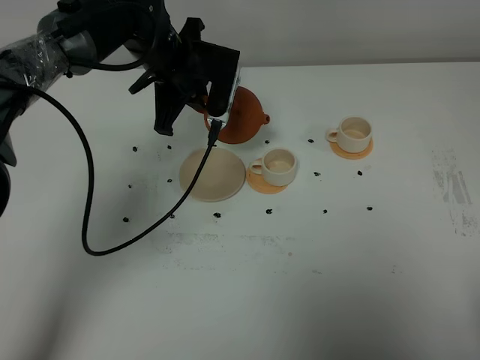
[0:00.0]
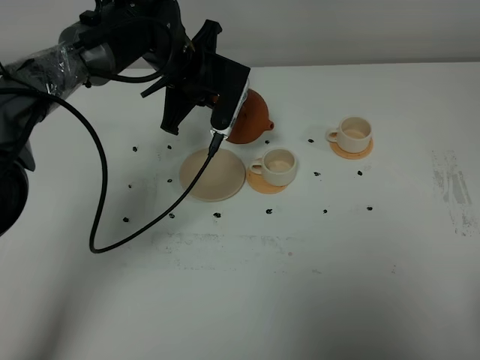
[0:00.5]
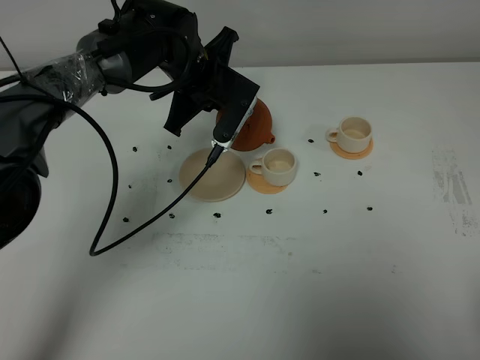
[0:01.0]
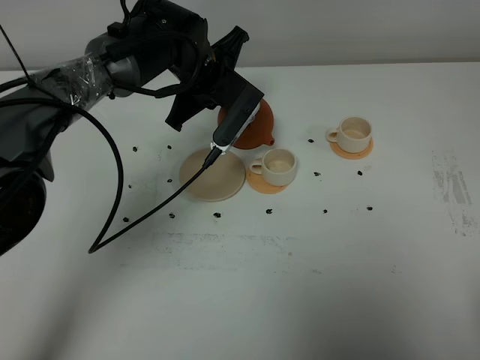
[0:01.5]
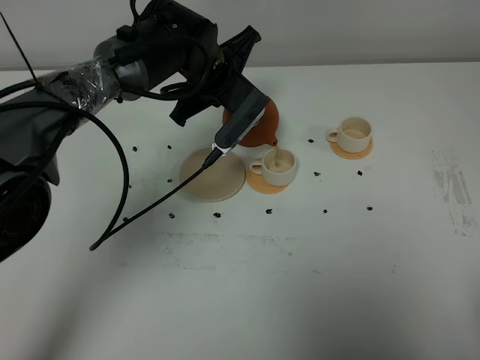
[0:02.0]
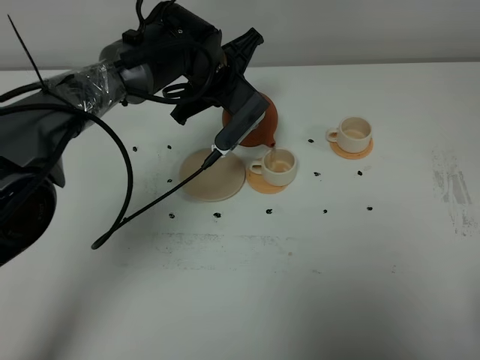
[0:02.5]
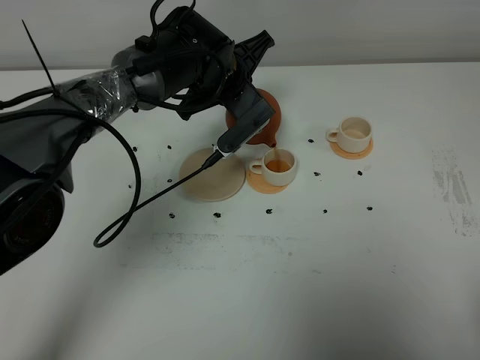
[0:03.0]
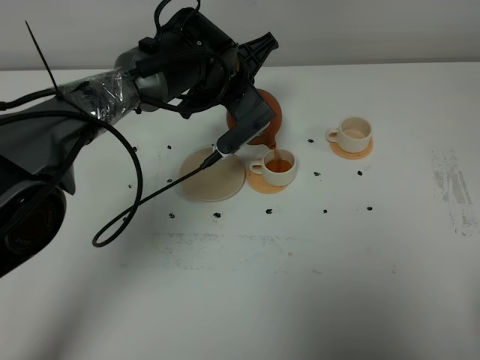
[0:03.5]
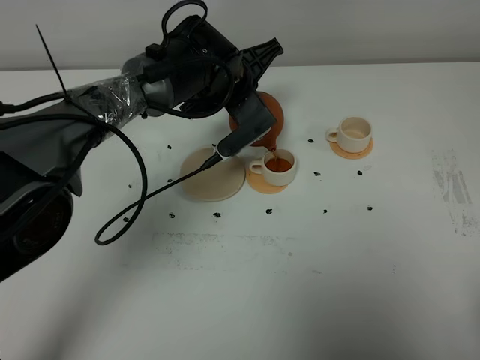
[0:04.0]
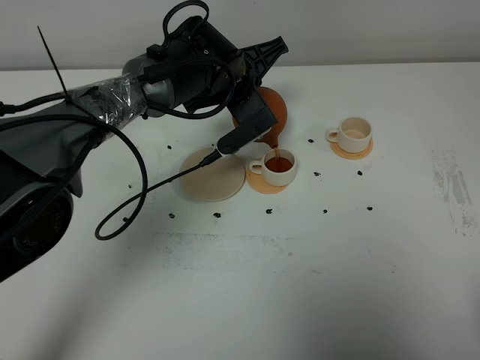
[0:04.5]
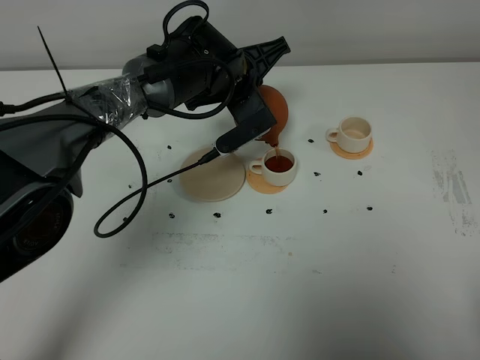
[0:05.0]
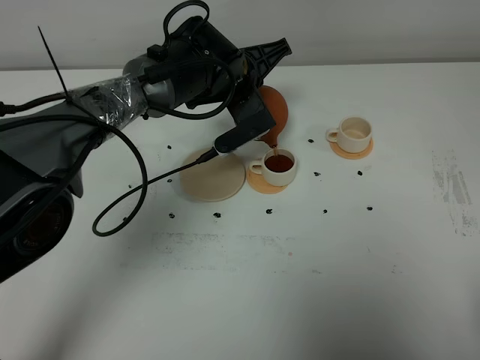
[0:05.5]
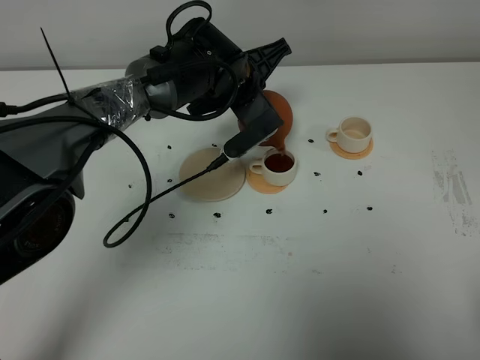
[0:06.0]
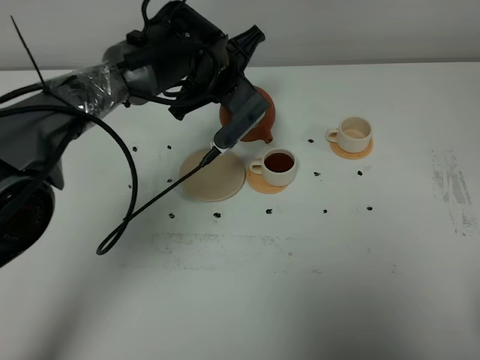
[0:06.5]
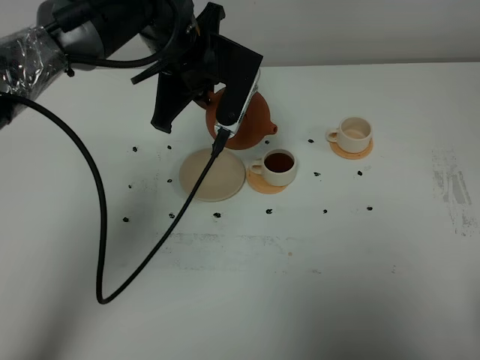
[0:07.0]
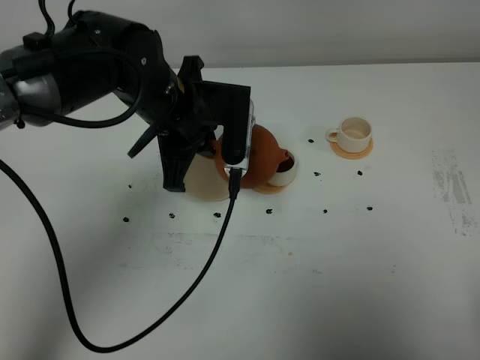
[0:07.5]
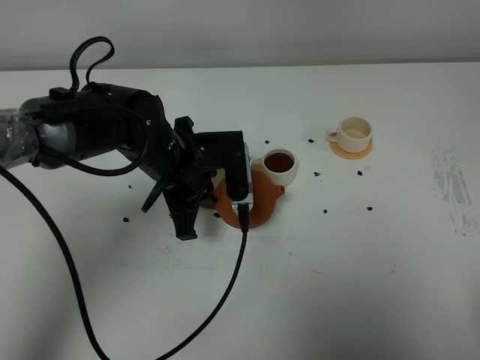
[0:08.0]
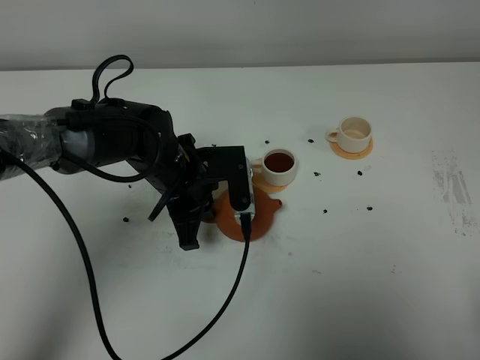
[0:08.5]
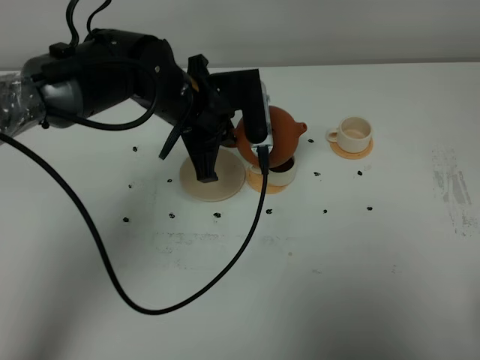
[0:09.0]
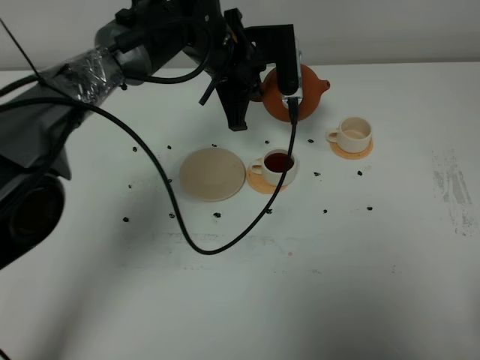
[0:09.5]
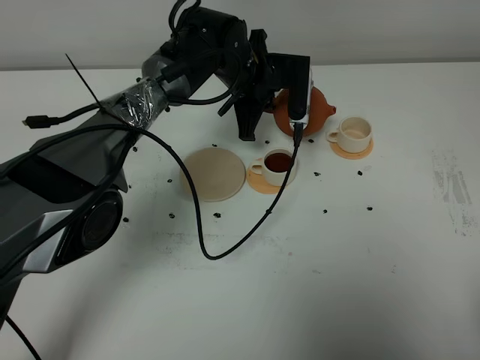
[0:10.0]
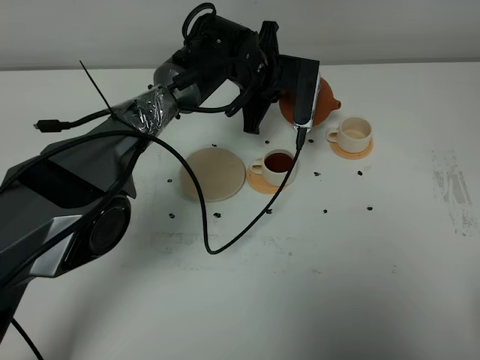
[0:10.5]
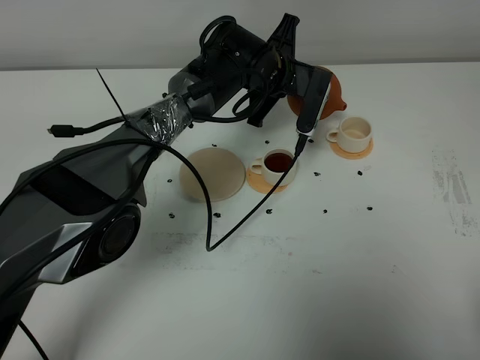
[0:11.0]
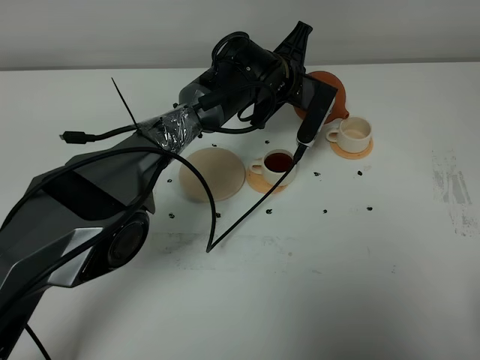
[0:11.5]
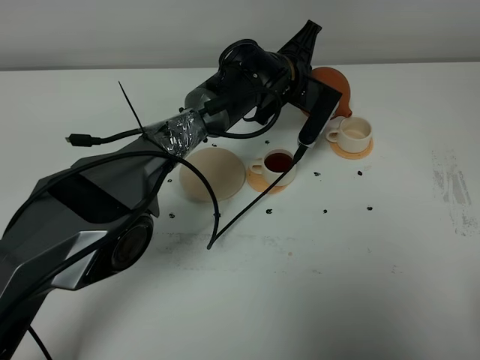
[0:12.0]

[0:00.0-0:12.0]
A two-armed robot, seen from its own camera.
Task of the whole recording: grasp the brown teapot and pour the tea into the two white teacups one by one, put the brown teapot back in its original place.
Step, 0:00.0 to 0:06.5: Pour tea into the teacup with the left gripper.
0:00.0 to 0:02.0: The left gripper shifts by some 5 cm.
0:02.0 to 0:04.0: The grippers move only a little.
0:04.0 to 0:06.0: The grippers move only a little.
0:06.0 to 0:08.0: The left gripper goes approximately 15 cm backward and to the left.
0:08.0 to 0:10.0: The left gripper is displaced forward and to the right by about 15 cm.
0:10.0 to 0:12.0: The left gripper ends up roughly 5 cm from where it was.

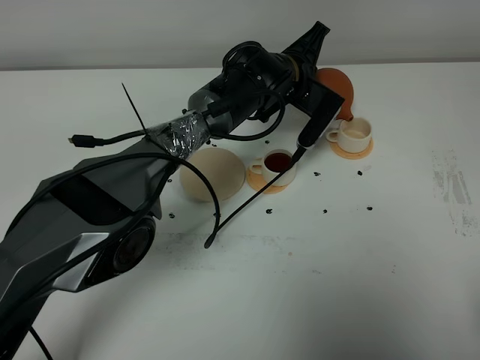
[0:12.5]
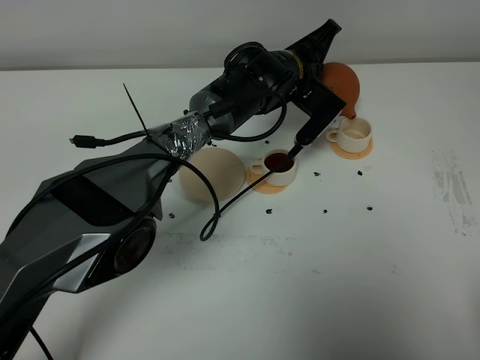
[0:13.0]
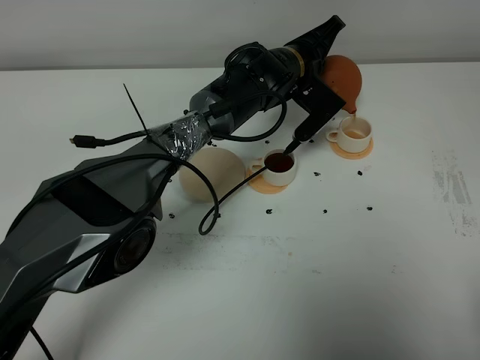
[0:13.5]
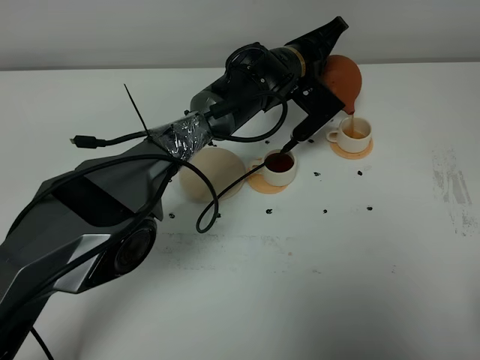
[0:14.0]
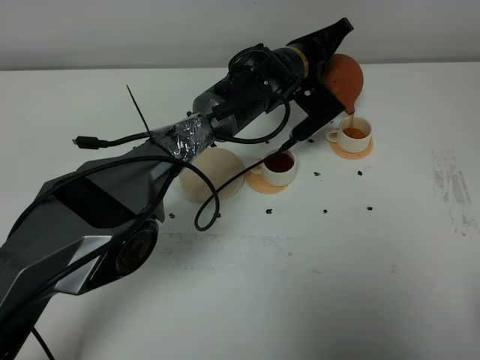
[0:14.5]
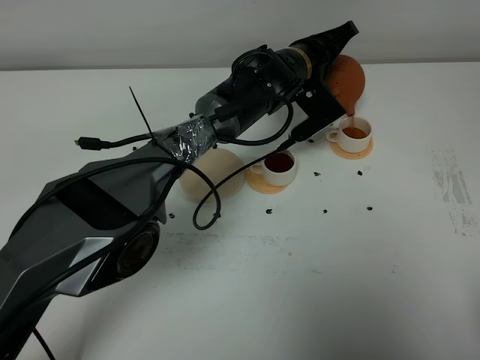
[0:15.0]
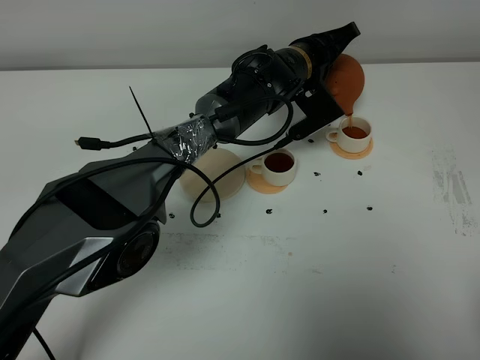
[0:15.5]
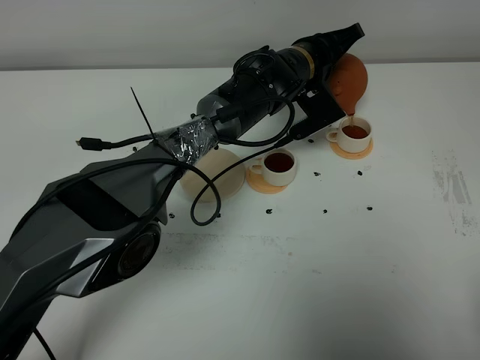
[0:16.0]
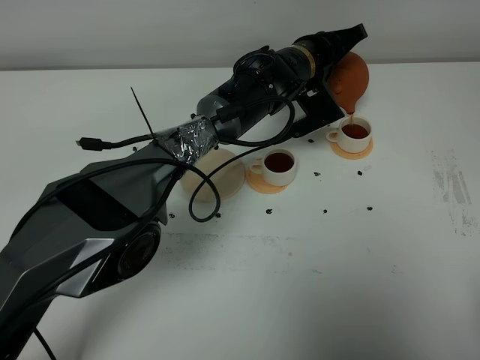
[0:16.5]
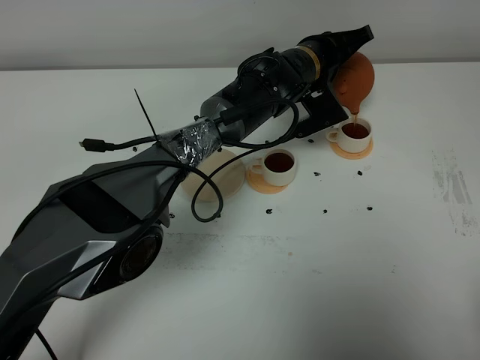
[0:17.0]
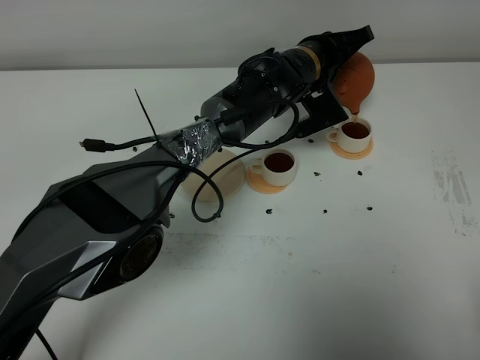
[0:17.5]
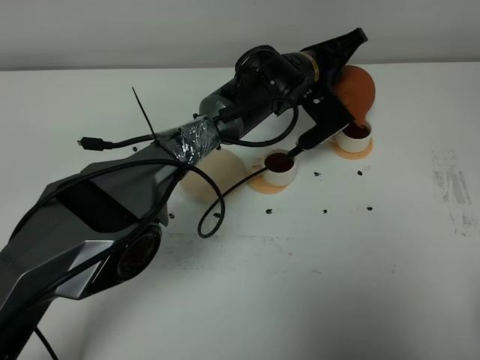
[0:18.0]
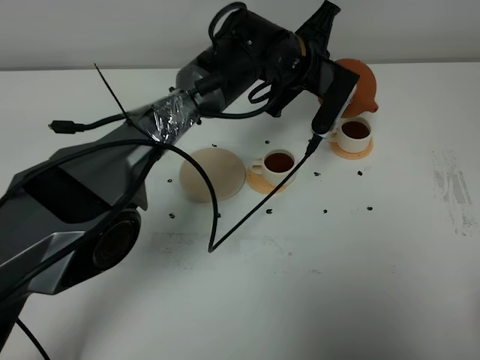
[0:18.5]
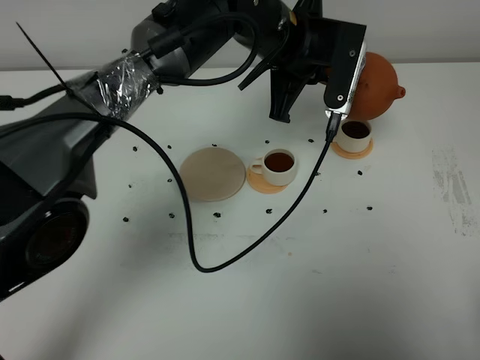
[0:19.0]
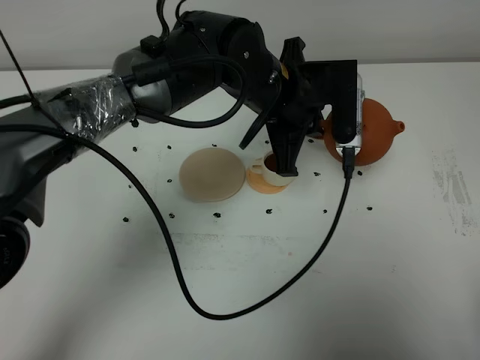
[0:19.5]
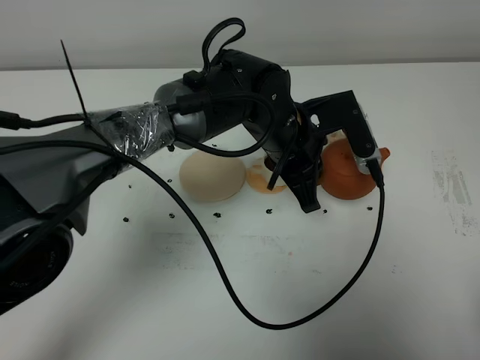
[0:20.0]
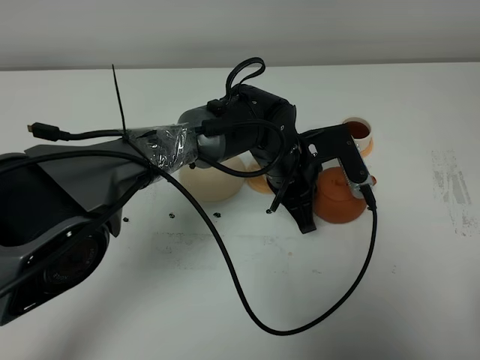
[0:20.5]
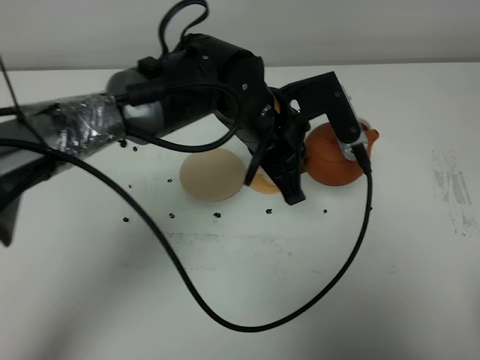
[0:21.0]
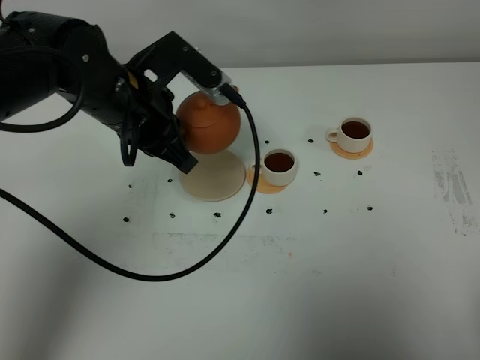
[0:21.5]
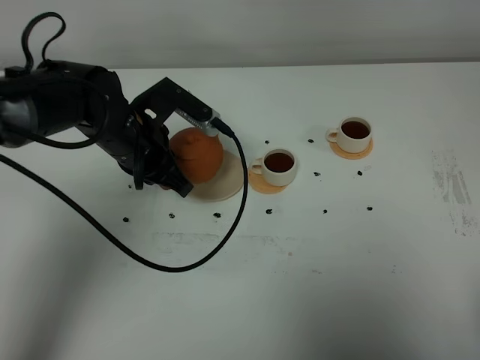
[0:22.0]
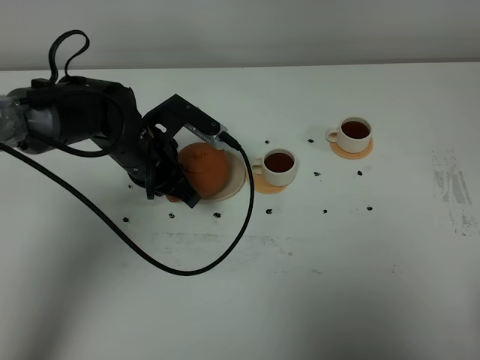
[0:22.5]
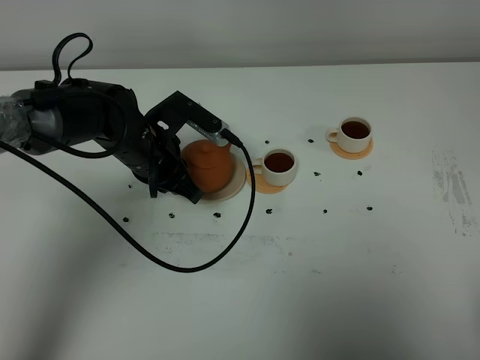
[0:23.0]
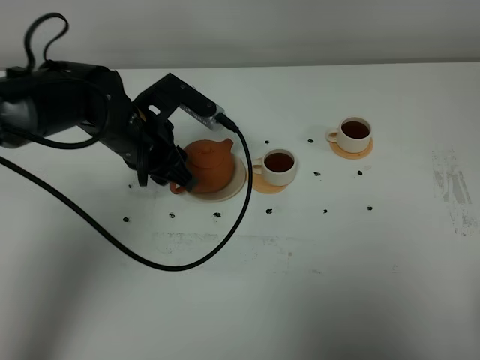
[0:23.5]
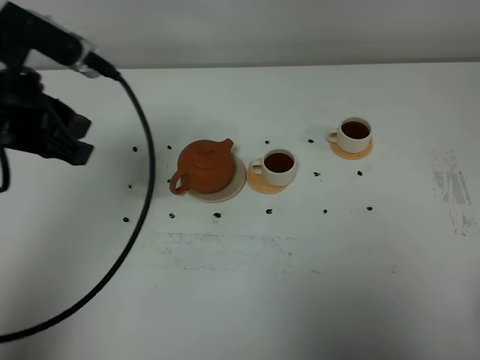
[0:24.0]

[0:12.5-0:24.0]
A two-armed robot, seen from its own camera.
Task of the whole recording: grasp the brown teapot and pour the tea into the two white teacups one by one, put the brown teapot back in its original place.
Step, 0:12.5 to 0:18.0: Pour tea into the teacup with the left gripper.
0:12.5 to 0:14.5: The grippers make only small movements.
0:14.5 to 0:16.5: The grippers make only small movements.
0:18.5 to 0:20.0: The left gripper travels backward by about 10 cm.
0:20.0 to 0:22.0: The left gripper heads to the left, covering approximately 20 cm.
0:22.0 to 0:24.0: The left gripper heads upward, backward and to the left, covering roughly 20 cm, and opens up.

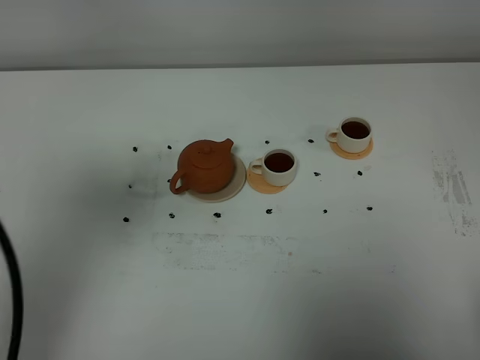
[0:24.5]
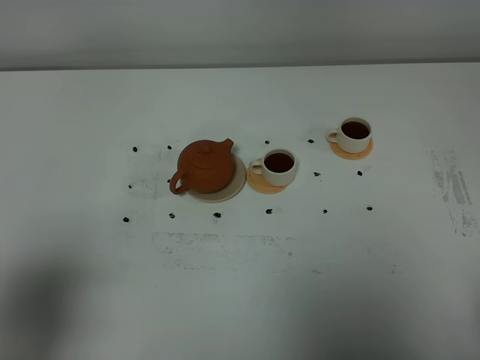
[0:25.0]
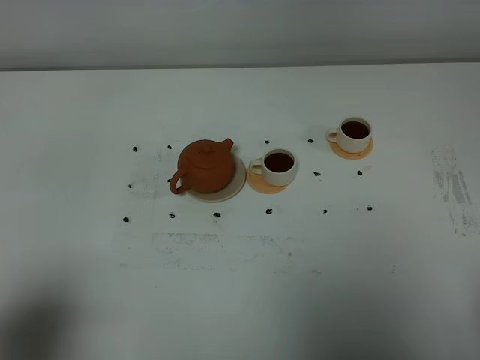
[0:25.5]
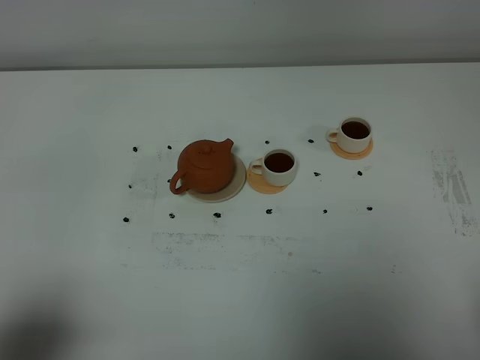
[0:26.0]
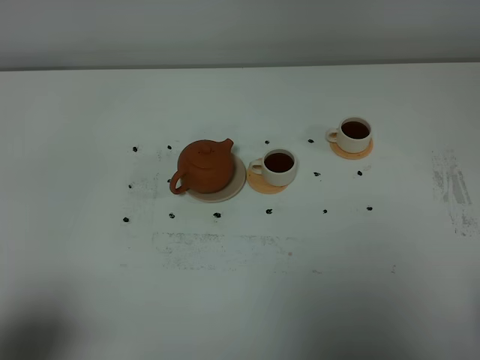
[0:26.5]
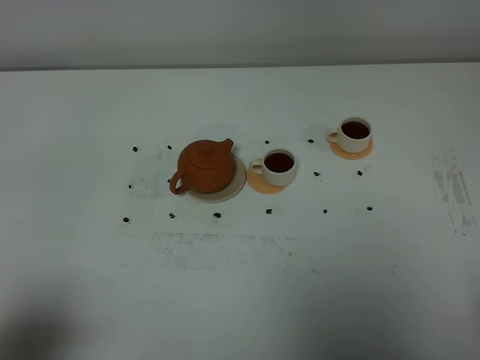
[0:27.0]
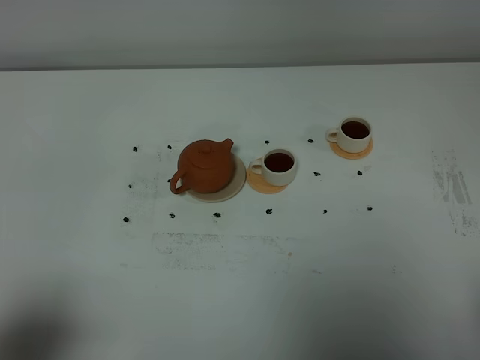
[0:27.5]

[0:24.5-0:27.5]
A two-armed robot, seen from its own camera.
Task of the whole recording: grasp the brown teapot and pour the tea into the two white teacups one by one, put the brown teapot back in its original place.
0:24.5 to 0:26.0: The left gripper travels downward and backward by roughly 20 cm.
0:26.0 to 0:27.5: Both grippers stay put.
